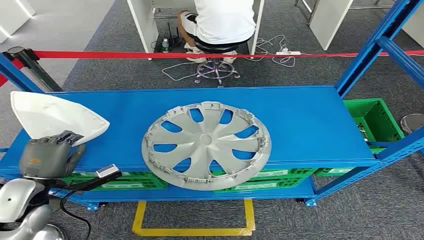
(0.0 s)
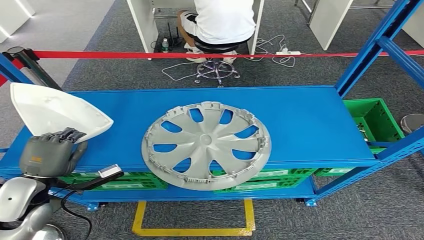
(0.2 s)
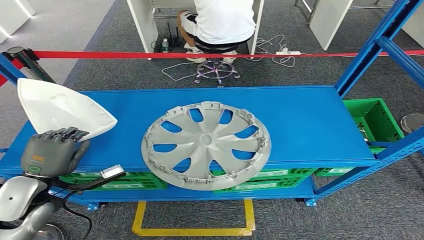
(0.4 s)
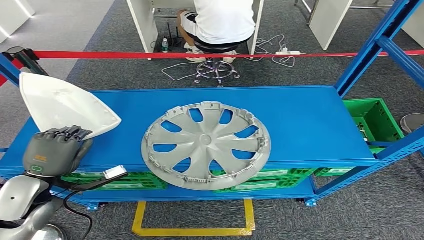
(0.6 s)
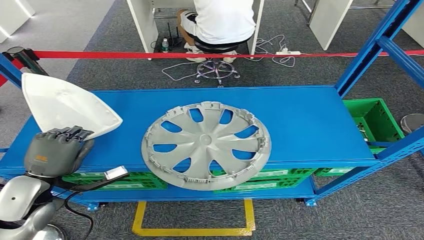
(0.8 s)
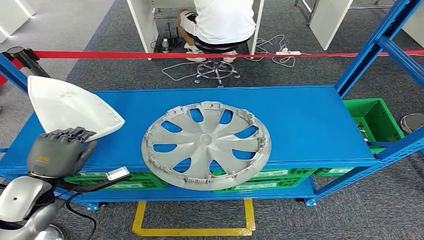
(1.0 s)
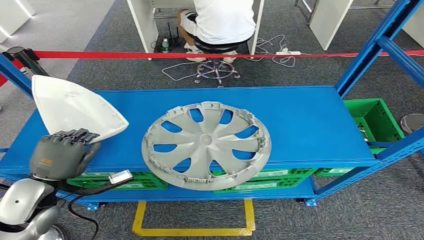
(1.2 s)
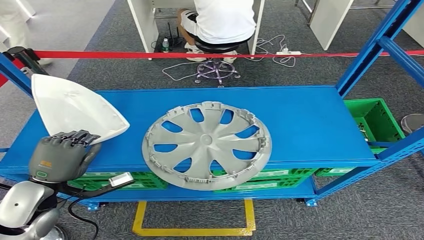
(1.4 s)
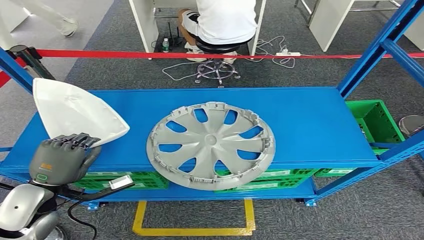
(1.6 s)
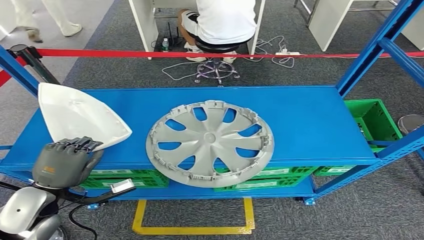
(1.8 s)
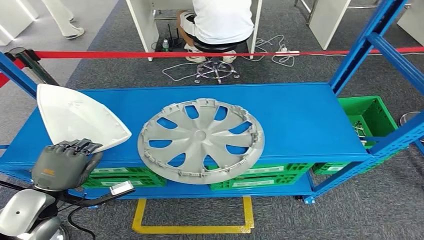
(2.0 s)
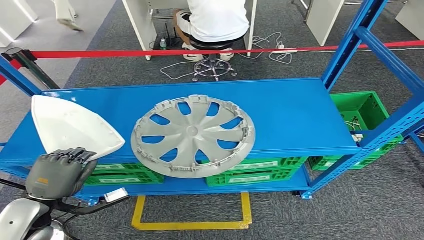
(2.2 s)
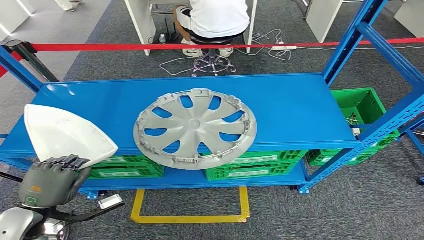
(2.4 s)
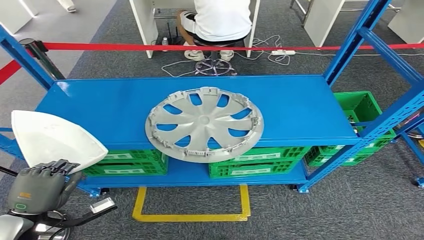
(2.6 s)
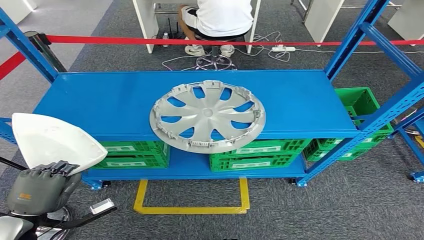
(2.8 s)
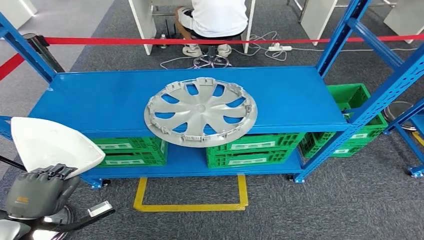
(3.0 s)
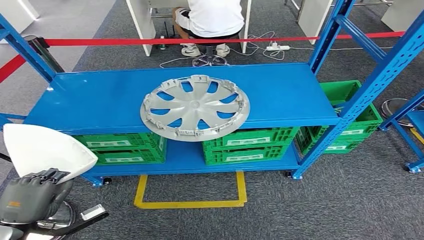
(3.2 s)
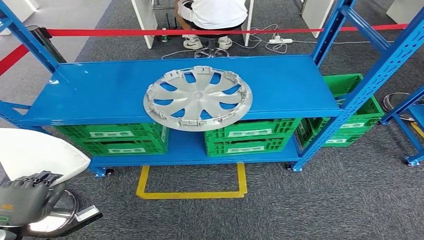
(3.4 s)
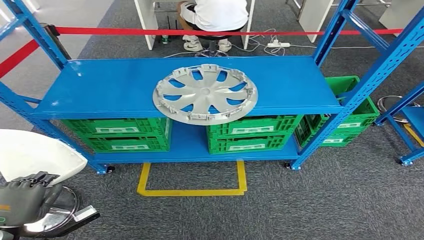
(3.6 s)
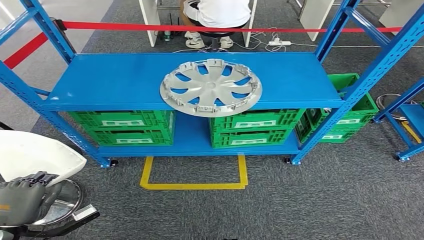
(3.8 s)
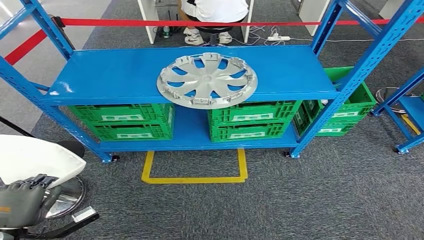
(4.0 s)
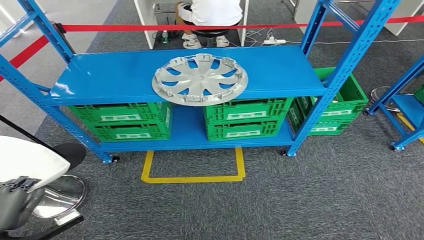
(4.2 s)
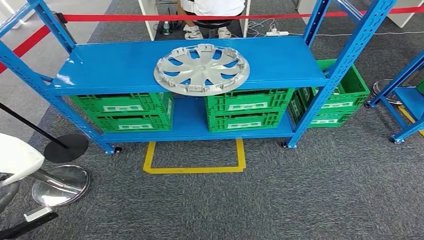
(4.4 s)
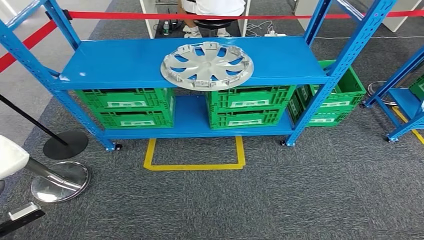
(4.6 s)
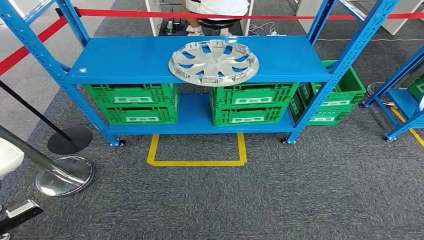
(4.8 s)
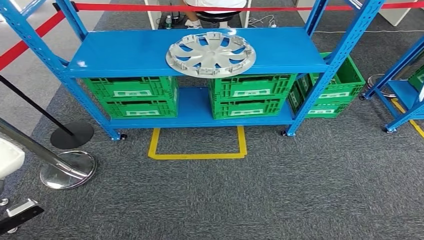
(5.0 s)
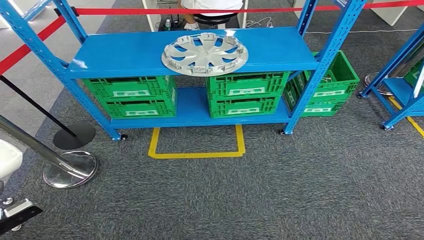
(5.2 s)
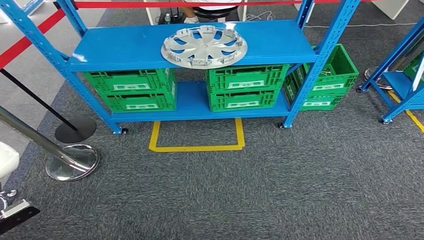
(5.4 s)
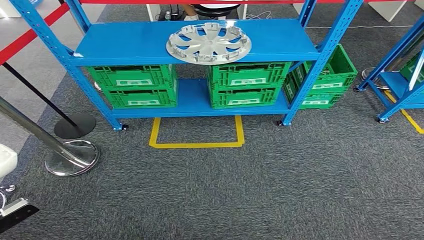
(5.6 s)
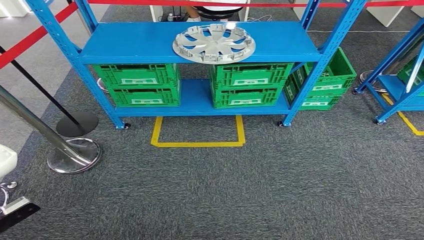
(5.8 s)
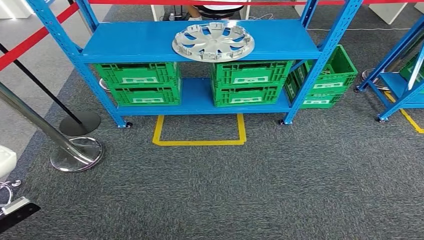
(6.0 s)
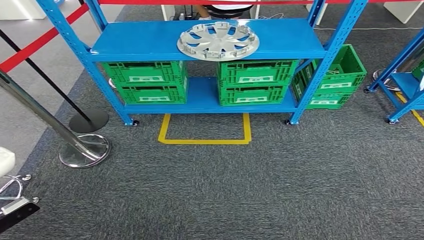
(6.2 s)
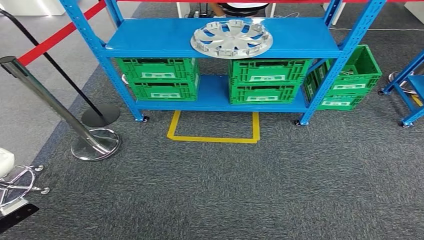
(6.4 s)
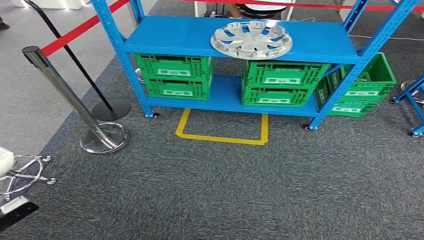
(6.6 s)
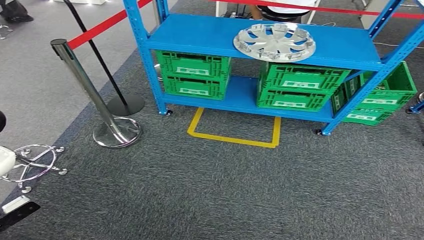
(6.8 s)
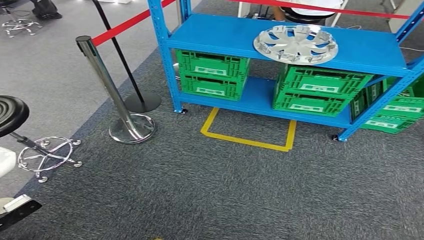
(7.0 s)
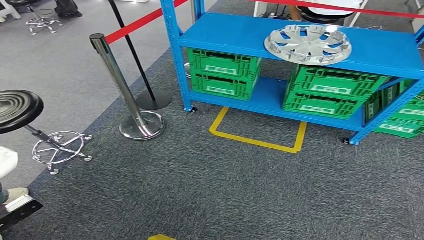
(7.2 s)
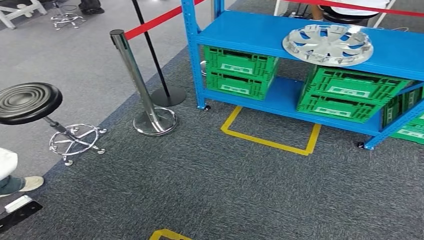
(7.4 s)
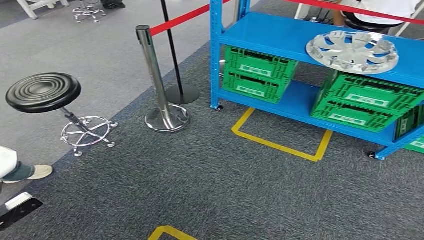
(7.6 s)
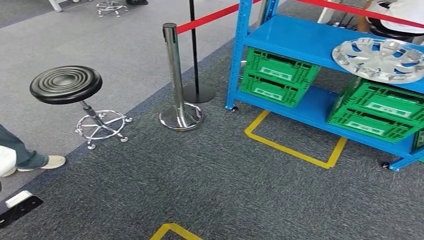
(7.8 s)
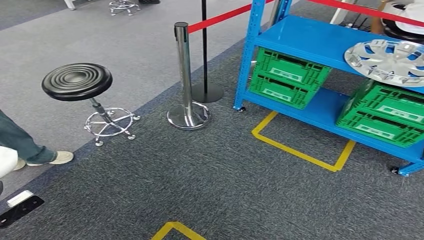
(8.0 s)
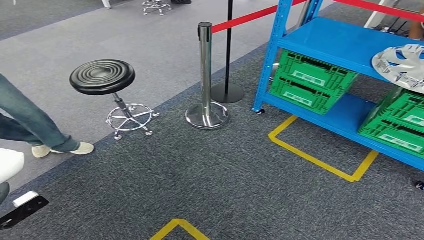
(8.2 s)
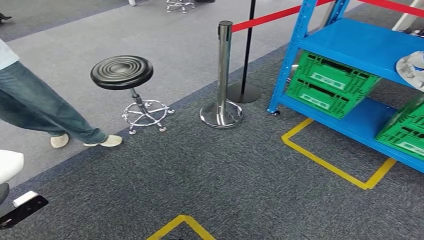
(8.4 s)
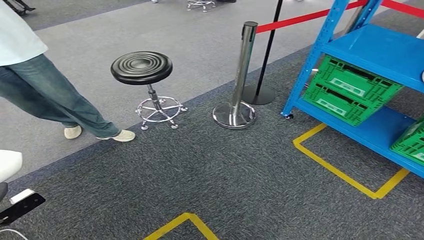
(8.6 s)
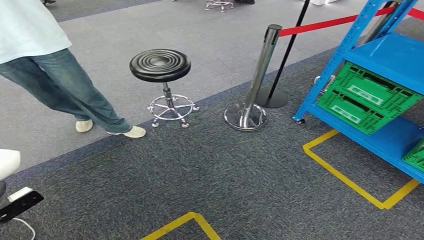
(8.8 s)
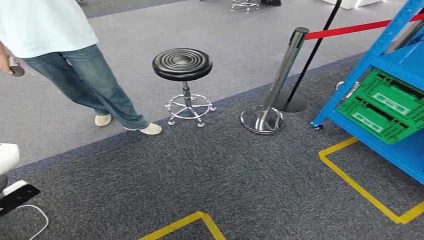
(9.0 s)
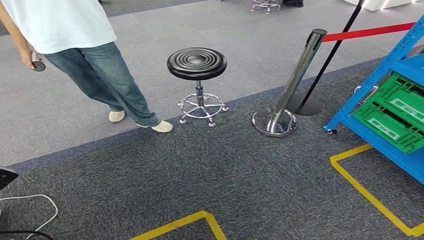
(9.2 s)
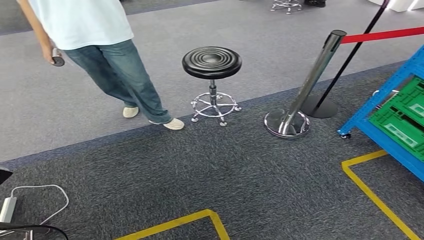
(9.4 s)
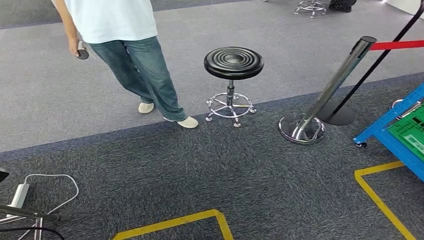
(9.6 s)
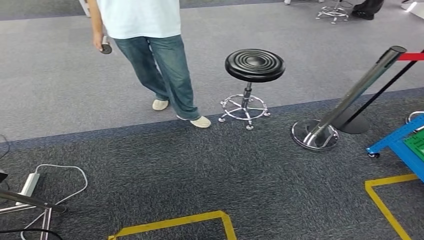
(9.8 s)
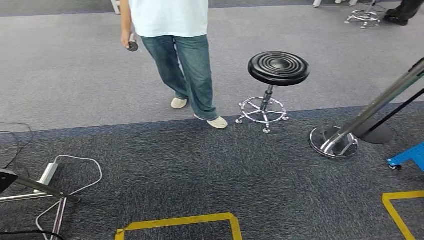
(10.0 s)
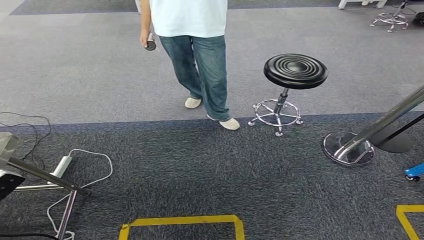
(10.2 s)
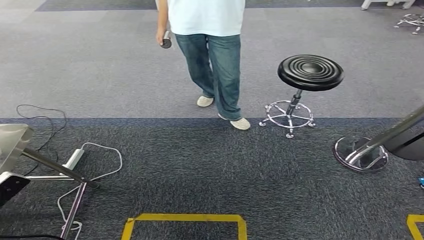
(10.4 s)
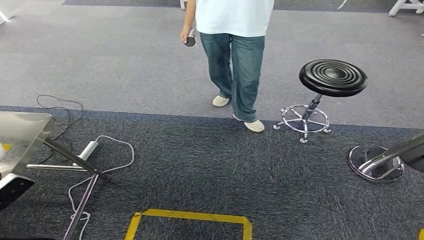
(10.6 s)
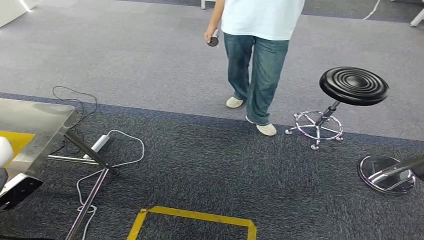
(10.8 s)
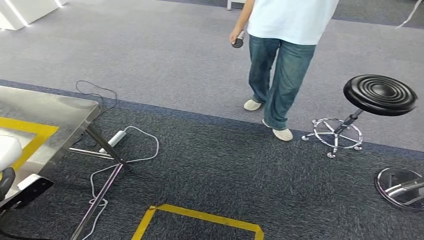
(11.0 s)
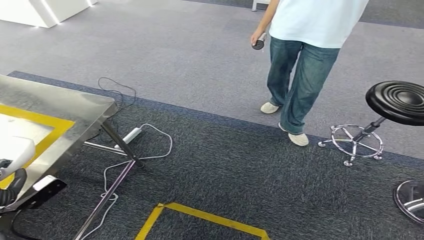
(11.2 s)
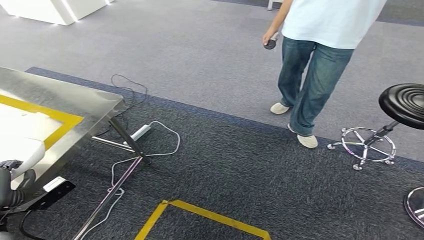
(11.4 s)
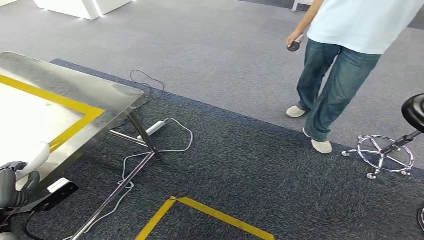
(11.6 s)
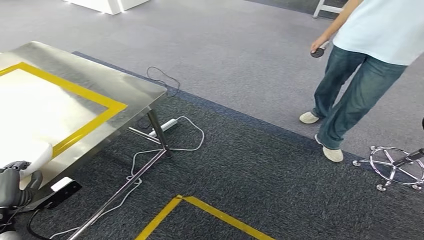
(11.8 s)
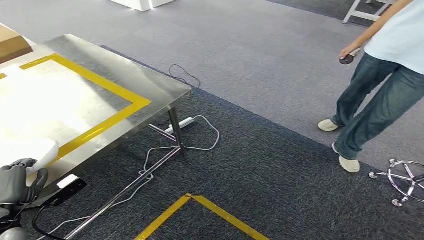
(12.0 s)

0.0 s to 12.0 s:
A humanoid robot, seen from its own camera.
Step, 0.0 to 1.4 s: Take small components from the rack.

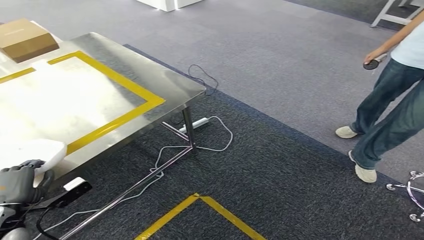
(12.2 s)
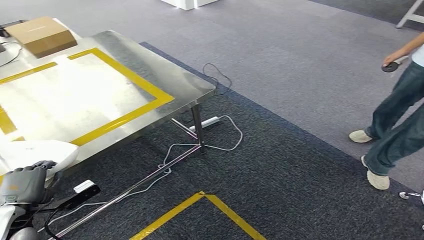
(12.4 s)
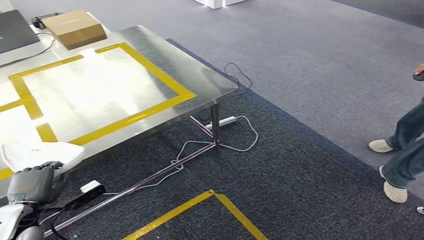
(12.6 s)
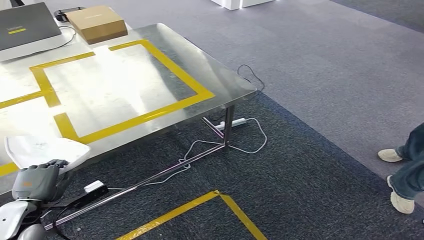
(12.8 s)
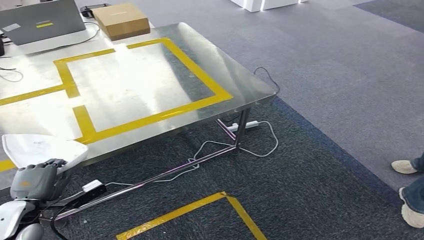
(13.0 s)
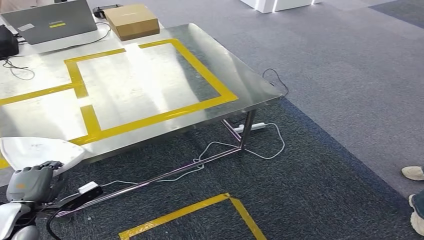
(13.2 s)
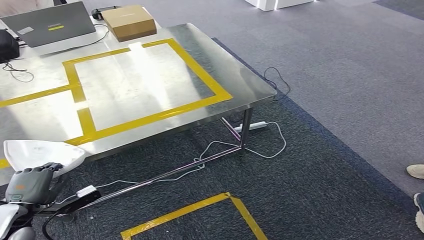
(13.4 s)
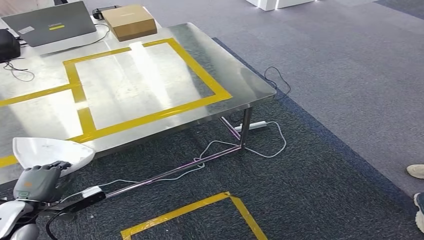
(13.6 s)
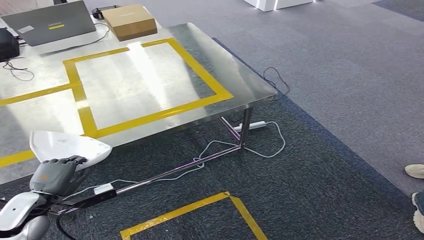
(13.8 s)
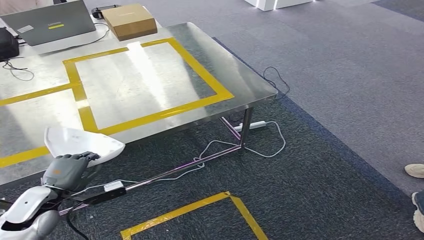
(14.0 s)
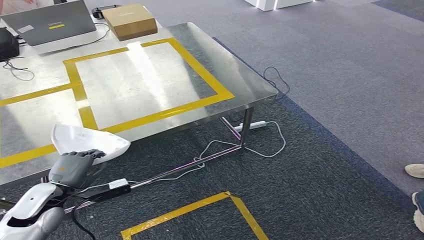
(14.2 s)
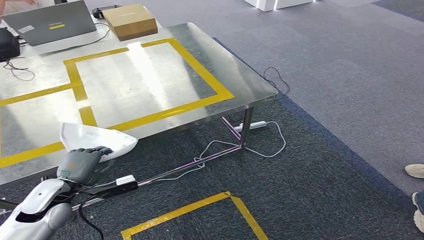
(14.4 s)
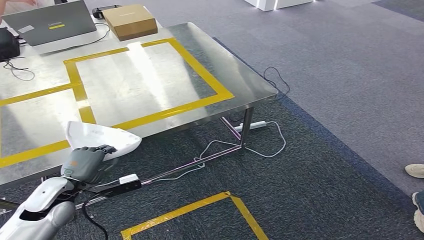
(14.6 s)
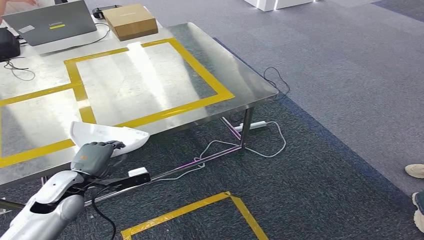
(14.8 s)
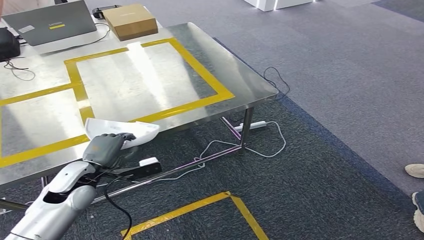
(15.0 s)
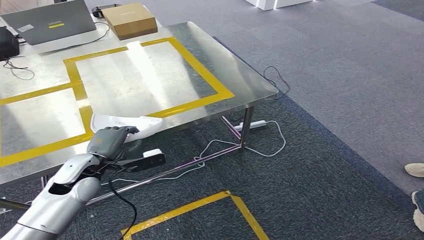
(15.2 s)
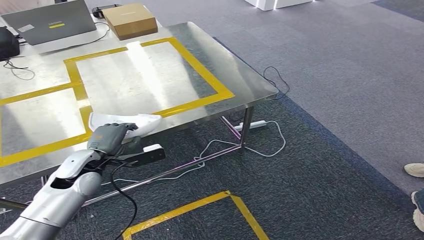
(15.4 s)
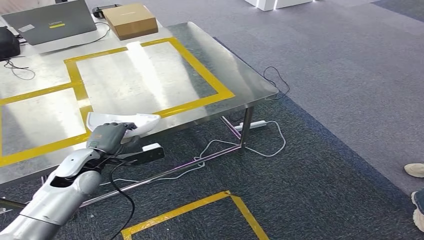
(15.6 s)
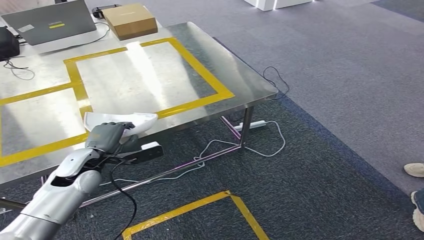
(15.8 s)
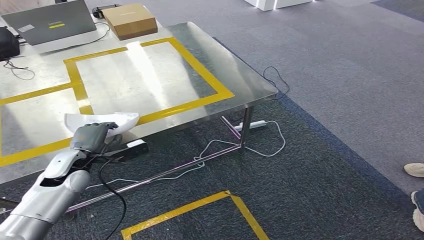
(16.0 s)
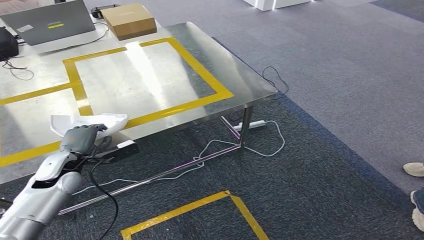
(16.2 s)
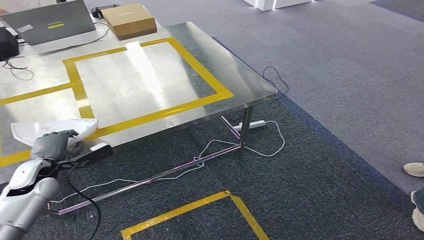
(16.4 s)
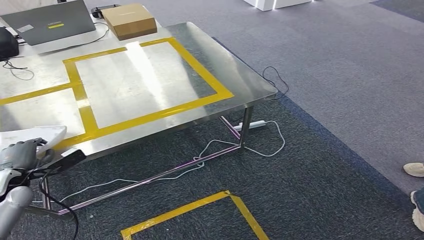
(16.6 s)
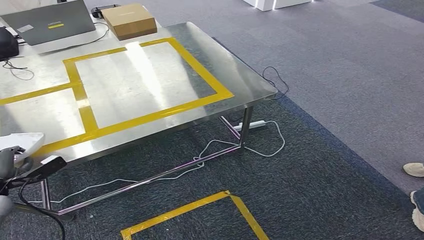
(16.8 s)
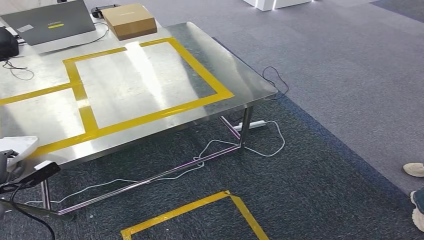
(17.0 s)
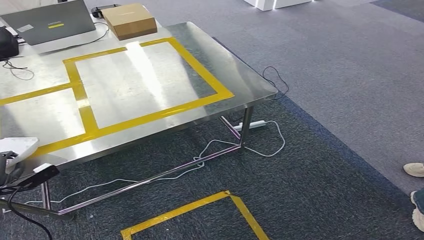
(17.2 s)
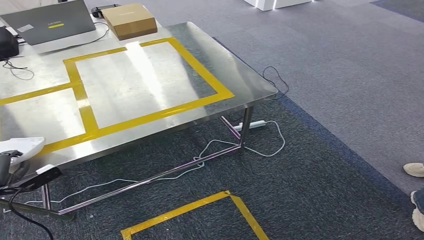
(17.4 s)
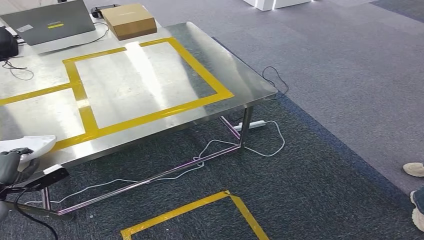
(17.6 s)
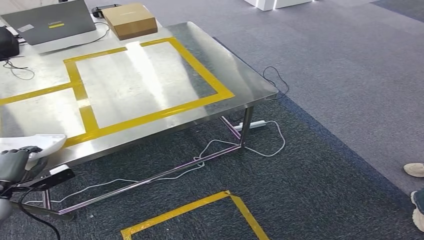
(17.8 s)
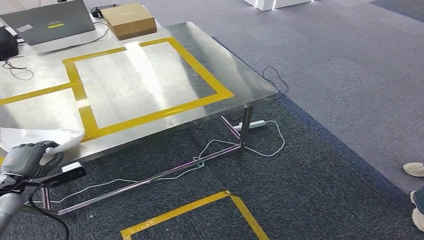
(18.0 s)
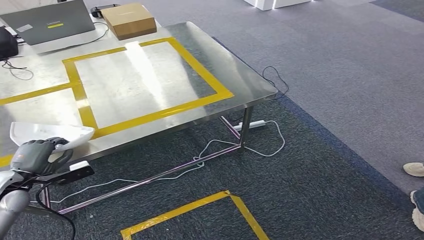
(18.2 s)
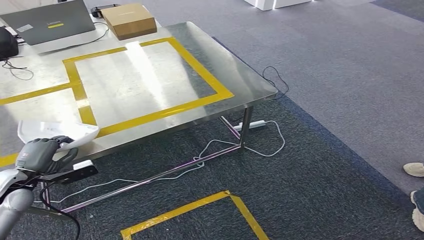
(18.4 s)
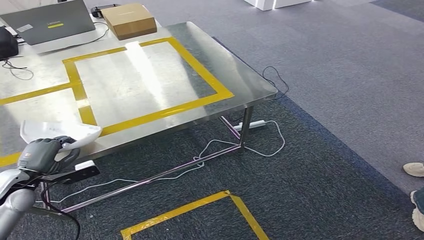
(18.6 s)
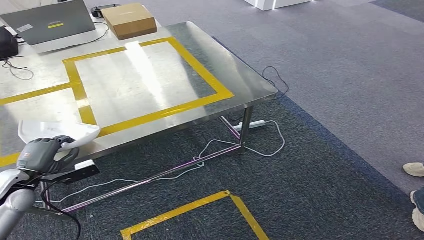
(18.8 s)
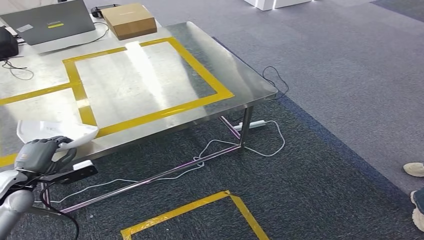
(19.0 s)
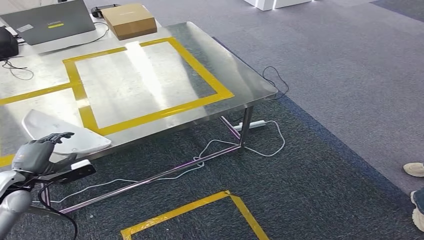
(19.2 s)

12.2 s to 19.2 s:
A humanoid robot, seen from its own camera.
13.6 to 15.0 s: The left hand heads to the right and forward, covering about 15 cm. The right hand goes approximately 5 cm to the right.
15.0 to 16.4 s: The left hand goes roughly 10 cm to the left.
16.4 to 17.8 s: The left hand shifts about 10 cm to the left and backward.
17.8 to 19.2 s: The left hand travels to the right by approximately 5 cm.
